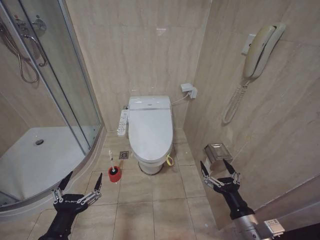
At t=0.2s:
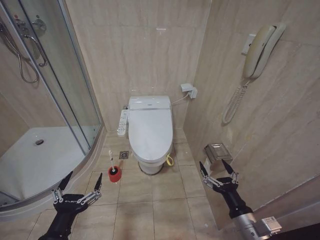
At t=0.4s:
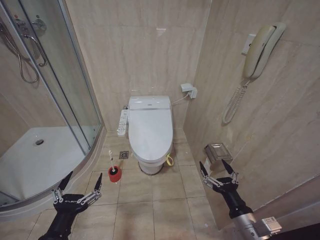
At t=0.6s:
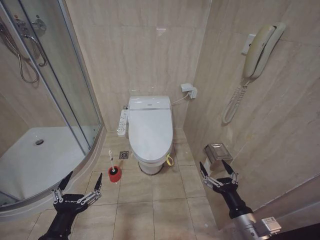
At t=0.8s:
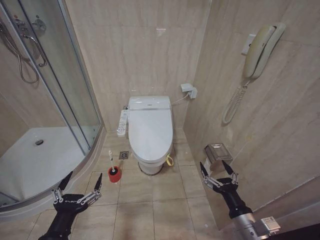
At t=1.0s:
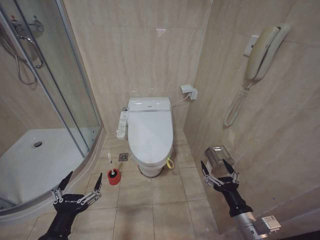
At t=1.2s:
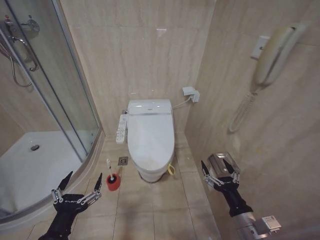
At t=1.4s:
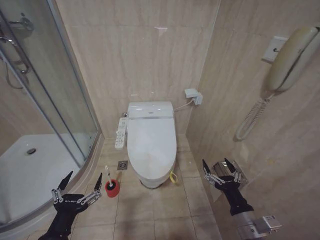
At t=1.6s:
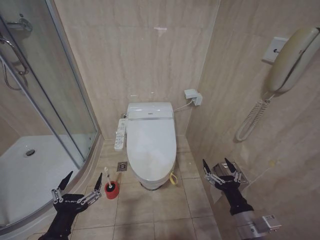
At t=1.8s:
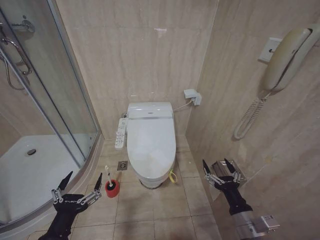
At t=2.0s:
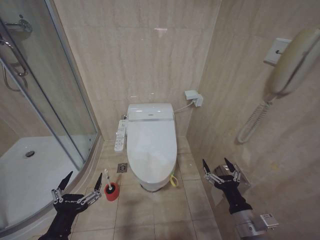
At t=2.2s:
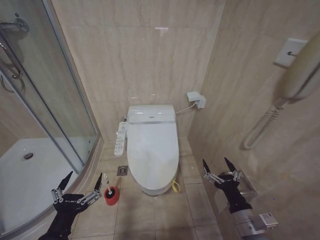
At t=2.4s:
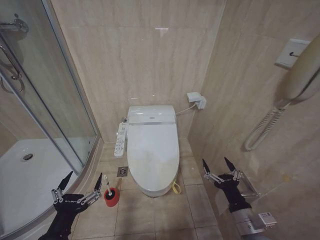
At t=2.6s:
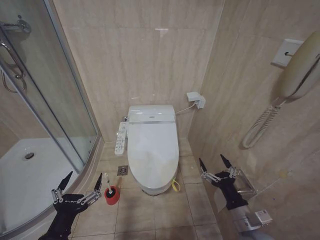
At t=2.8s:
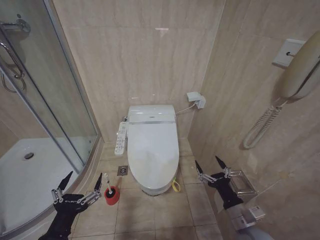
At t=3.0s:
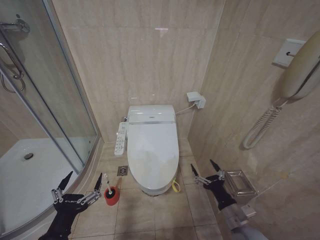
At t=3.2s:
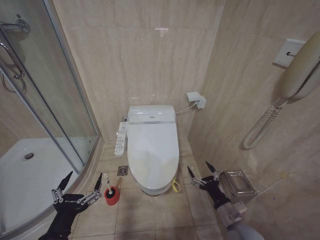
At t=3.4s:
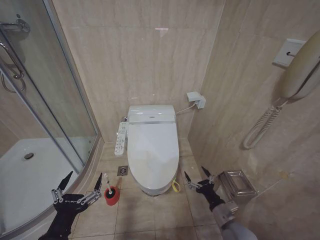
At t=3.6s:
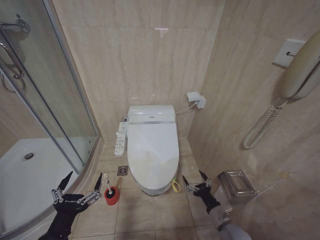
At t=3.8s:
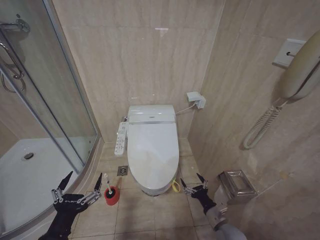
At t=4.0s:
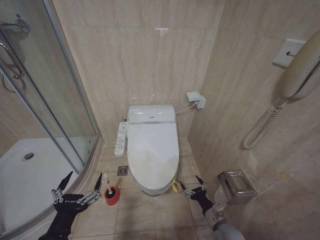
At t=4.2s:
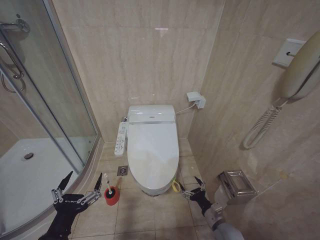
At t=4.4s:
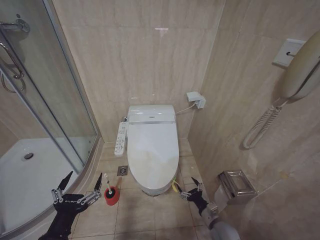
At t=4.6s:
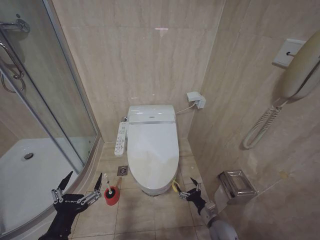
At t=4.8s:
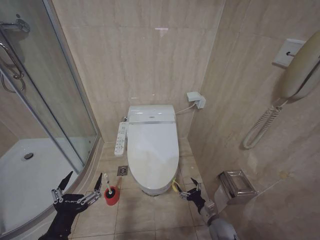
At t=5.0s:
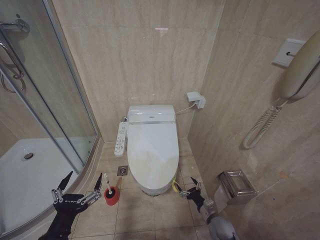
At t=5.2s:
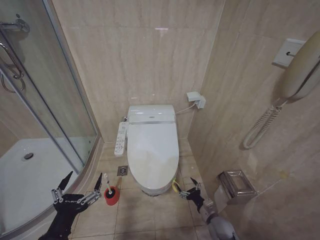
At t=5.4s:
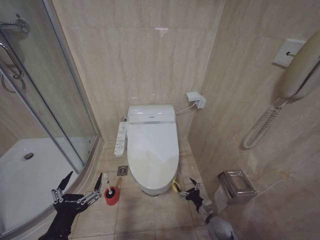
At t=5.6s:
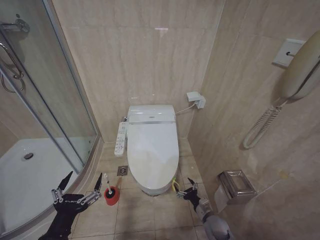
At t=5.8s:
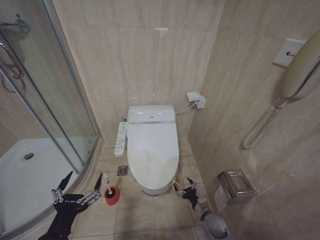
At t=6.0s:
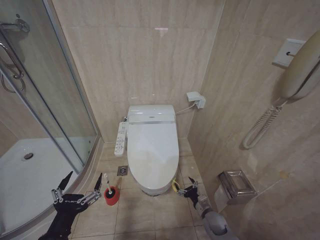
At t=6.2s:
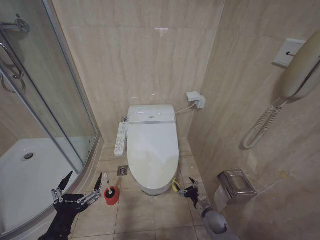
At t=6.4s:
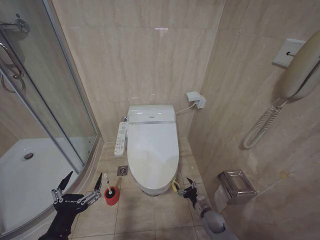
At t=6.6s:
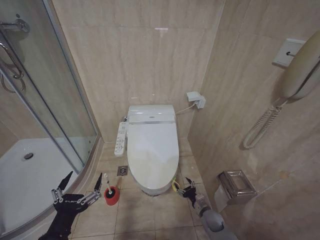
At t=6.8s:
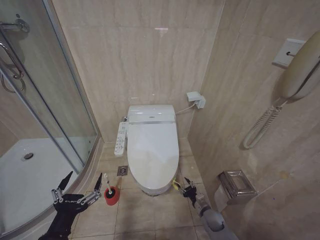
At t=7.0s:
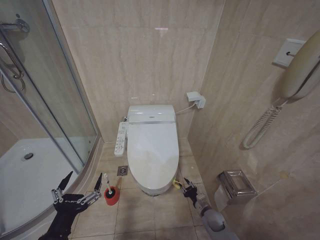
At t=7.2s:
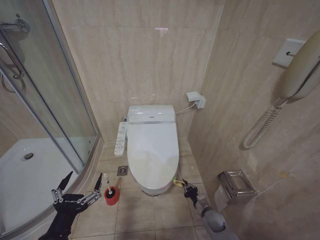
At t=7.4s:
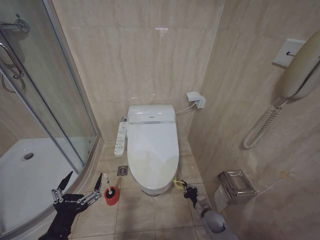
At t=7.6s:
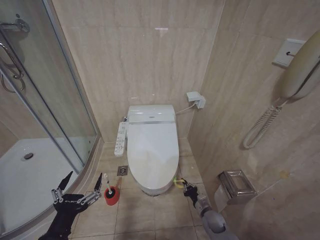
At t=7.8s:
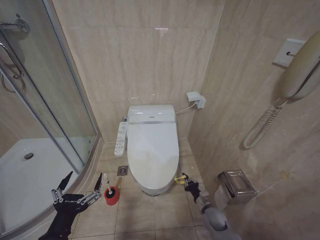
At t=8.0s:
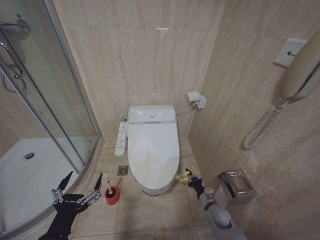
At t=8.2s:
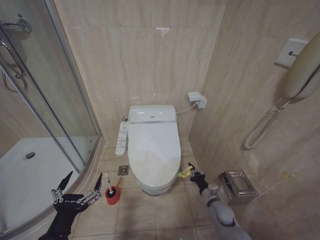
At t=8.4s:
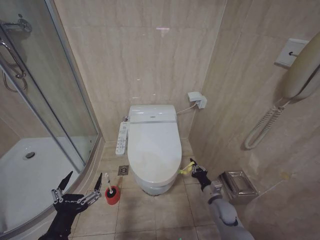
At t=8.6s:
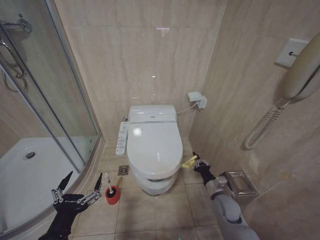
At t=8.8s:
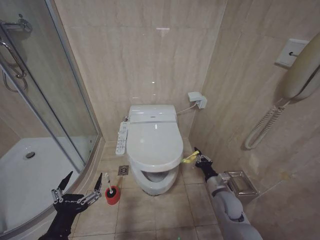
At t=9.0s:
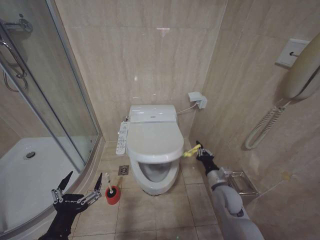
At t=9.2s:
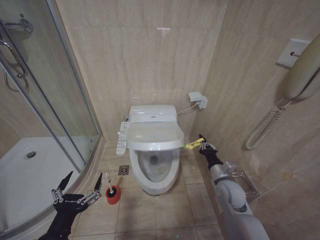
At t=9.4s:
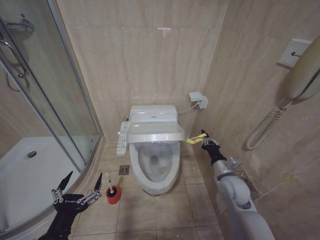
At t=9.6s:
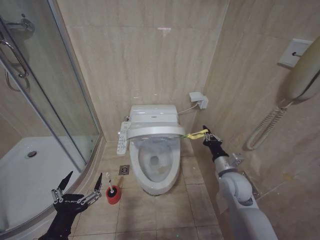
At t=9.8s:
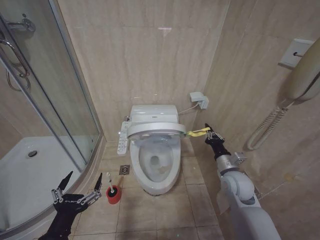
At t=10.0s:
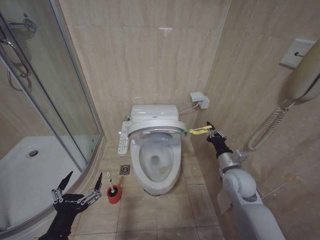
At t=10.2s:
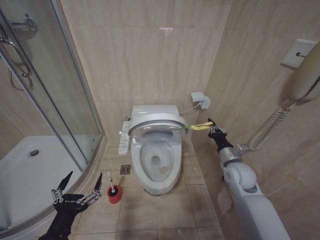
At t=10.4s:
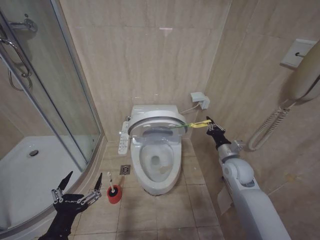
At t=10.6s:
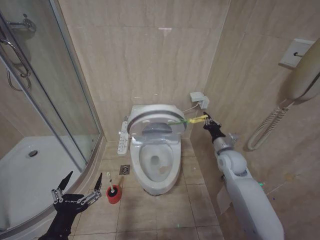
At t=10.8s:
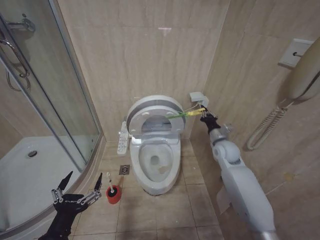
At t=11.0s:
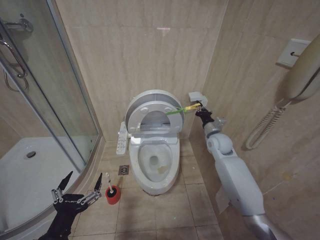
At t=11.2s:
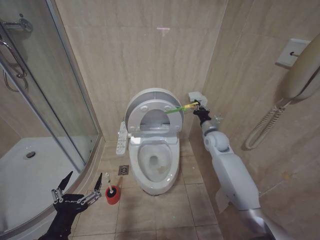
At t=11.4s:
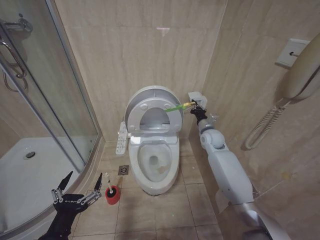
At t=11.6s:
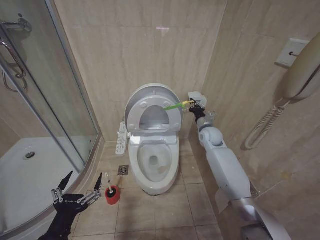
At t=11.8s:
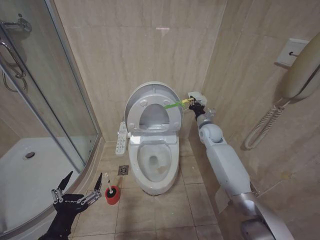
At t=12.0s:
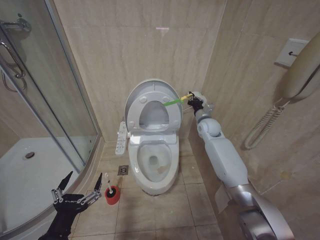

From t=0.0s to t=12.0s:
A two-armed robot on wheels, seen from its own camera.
Task of the whole recording: Open the toilet lid, clean the toilet bowl with a toilet brush, close the toilet lid, and flush.
From t=1.6s to t=3.0s: The right gripper moves some 5 cm.
From t=3.0s to t=4.4s: The right gripper is displaced downward by about 15 cm.
From t=4.4s to t=6.0s: The right gripper heads forward and downward, covering roughly 10 cm.
From t=7.6s to t=9.0s: The right gripper is displaced upward by roughly 20 cm.
From t=9.0s to t=10.4s: The right gripper heads upward and forward, covering about 10 cm.
From t=10.4s to t=12.0s: The right gripper is displaced forward by about 20 cm.

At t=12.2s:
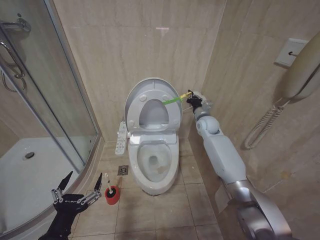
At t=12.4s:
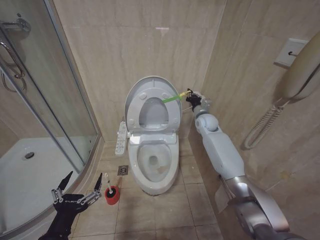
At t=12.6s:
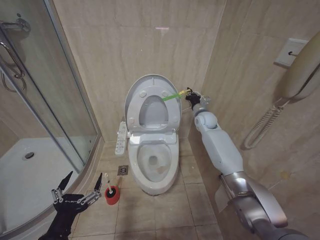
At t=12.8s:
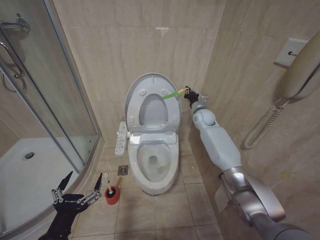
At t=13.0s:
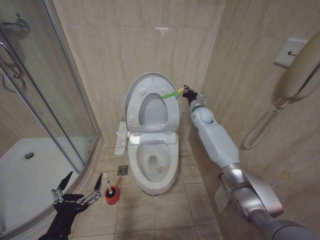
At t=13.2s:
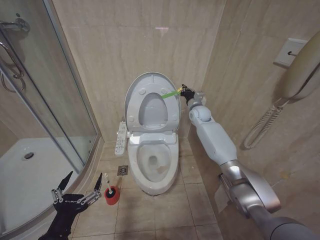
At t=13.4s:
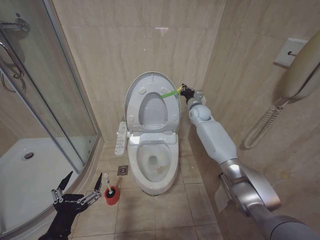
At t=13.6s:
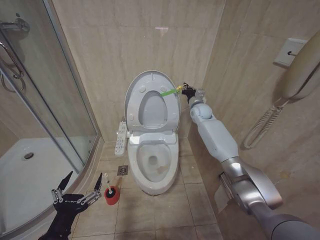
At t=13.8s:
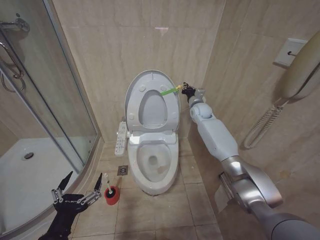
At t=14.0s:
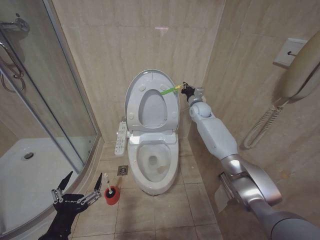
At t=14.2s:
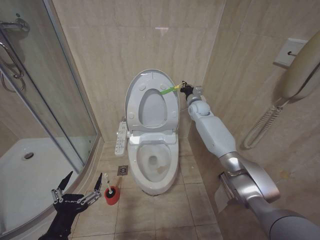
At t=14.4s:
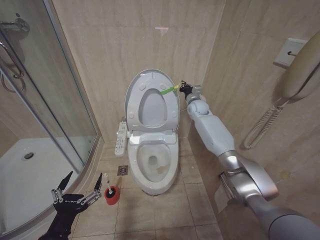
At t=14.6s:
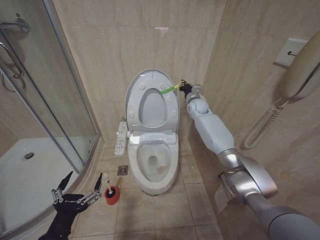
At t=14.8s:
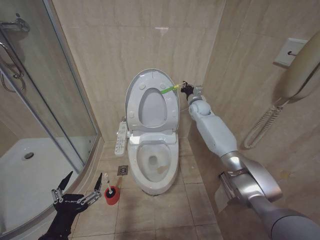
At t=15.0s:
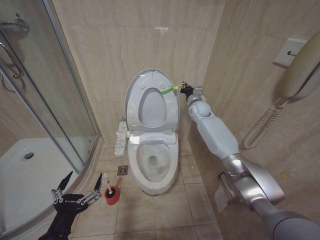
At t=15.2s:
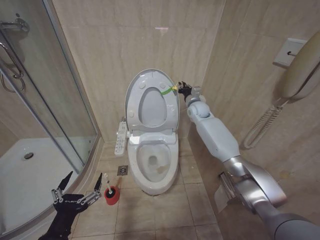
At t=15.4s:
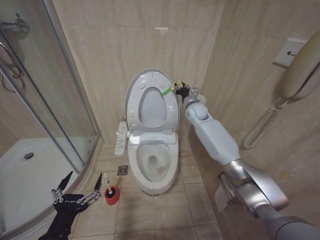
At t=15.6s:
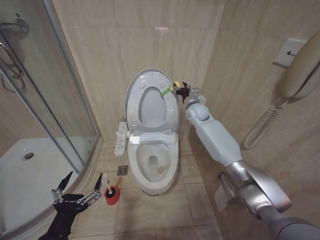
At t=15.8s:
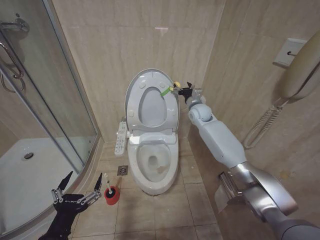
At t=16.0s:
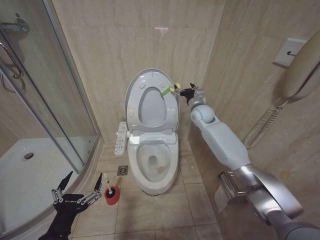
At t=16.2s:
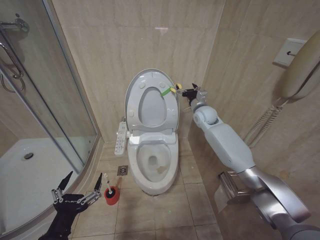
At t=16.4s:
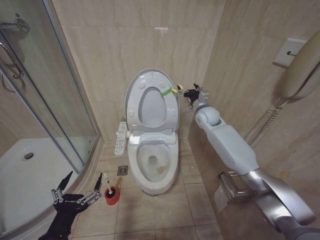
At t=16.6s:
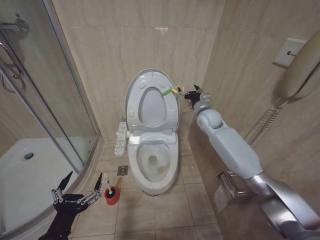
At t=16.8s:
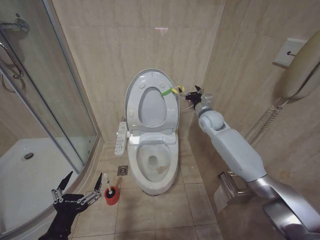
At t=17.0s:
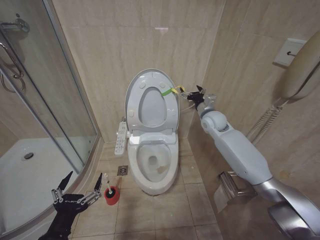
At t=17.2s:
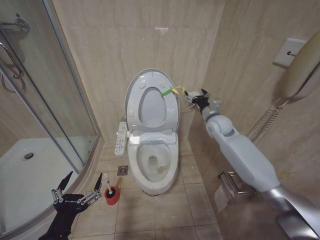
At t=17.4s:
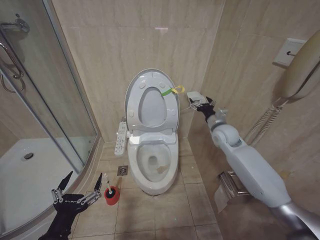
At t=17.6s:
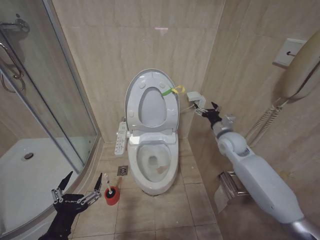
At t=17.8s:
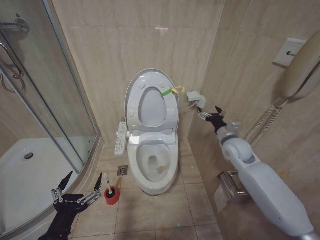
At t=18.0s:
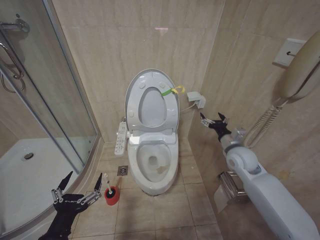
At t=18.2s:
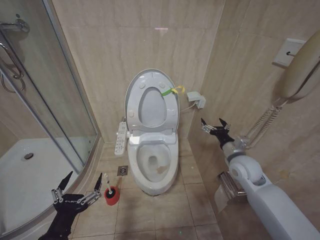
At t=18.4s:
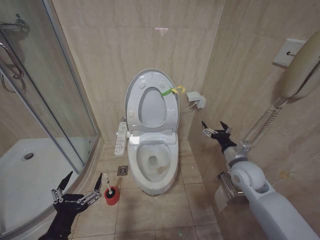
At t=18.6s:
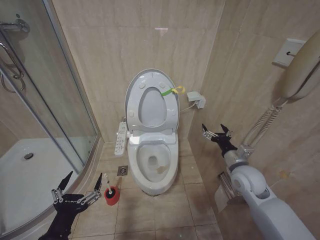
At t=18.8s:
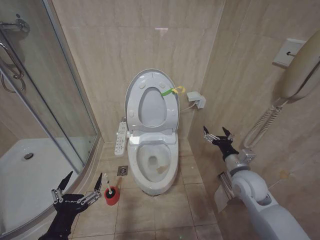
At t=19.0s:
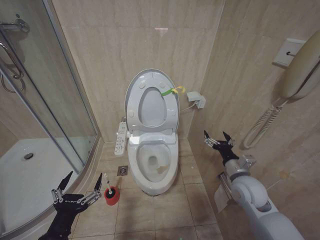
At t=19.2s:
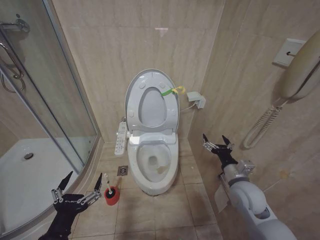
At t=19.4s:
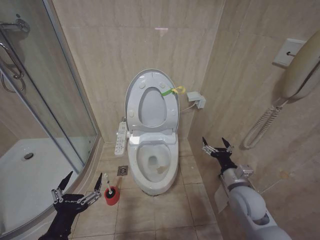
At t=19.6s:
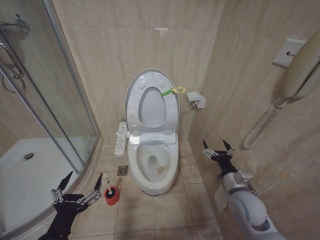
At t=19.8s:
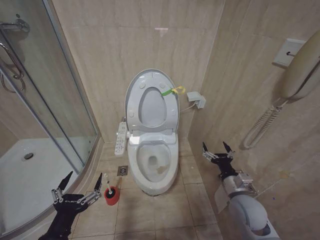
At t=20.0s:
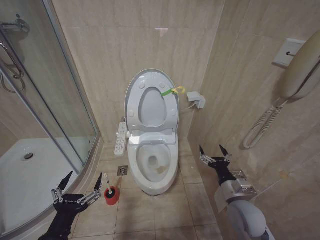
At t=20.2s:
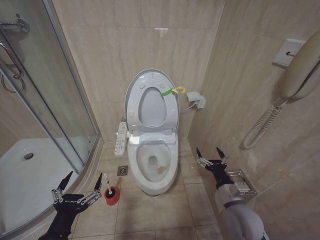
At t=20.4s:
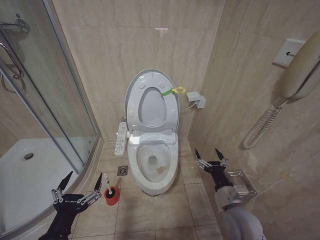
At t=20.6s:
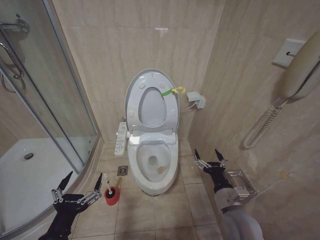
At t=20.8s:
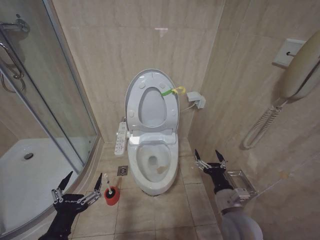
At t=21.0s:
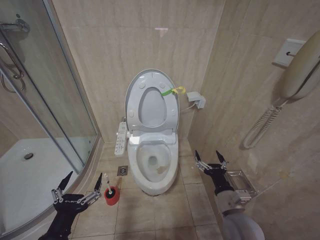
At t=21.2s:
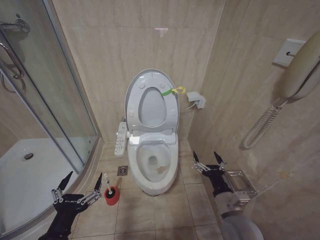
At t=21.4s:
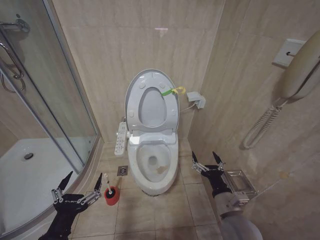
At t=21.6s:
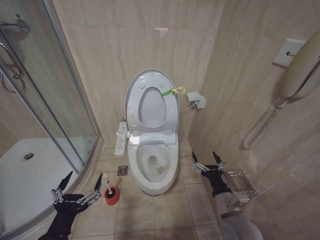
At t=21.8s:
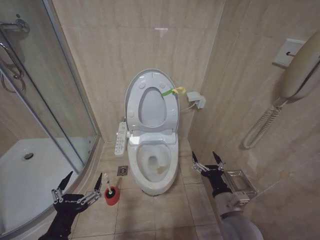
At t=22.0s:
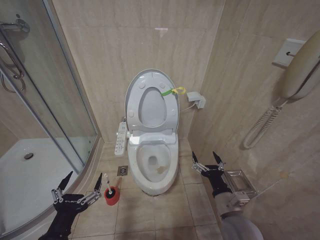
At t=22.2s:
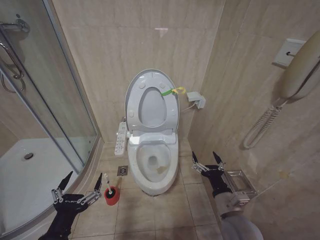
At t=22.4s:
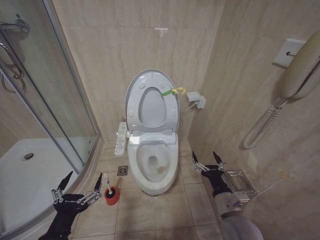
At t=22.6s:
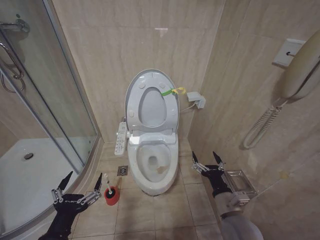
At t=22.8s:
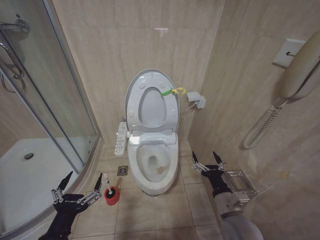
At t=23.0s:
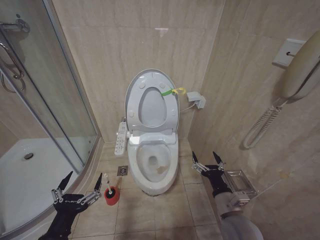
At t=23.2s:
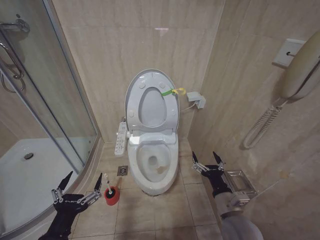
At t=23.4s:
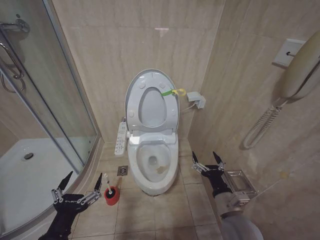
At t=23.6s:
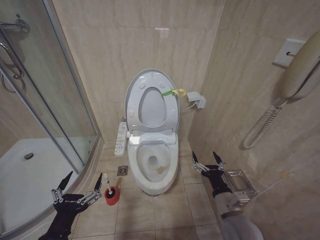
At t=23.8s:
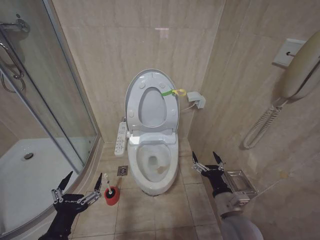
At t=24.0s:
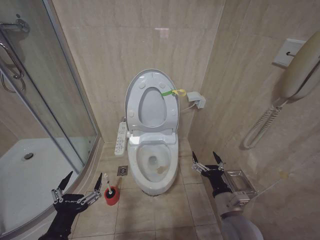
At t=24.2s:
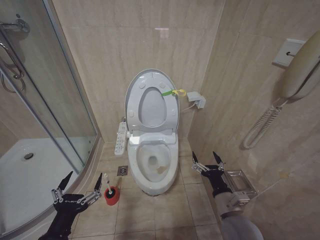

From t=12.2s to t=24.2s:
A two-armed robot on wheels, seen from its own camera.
Task of the whole recording: Open the toilet lid, clean the toilet bowl with a toilet brush, close the toilet lid, and flush.
From t=12.2s to t=13.8s: The right gripper travels forward by about 5 cm.
From t=13.8s to t=15.2s: The grippers stay close to where they were, moving slightly.
From t=15.2s to t=16.6s: The right gripper is displaced backward by some 5 cm, and opens its fingers.
From t=16.6s to t=18.2s: The right gripper is displaced backward, downward and to the right by some 20 cm.
From t=18.2s to t=19.8s: The right gripper is displaced backward and downward by about 15 cm.
From t=19.8s to t=21.2s: The right gripper travels backward and to the left by about 5 cm.
From t=21.2s to t=24.2s: Neither gripper changes place.
